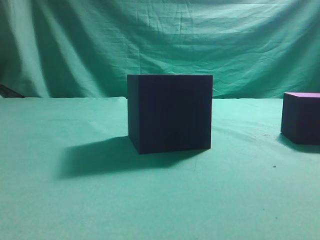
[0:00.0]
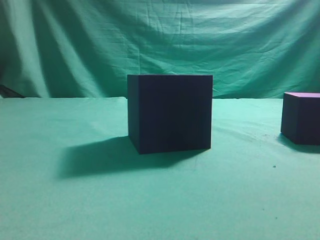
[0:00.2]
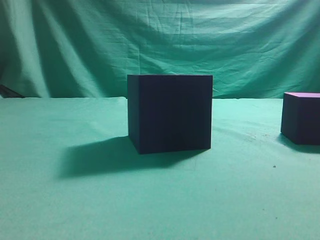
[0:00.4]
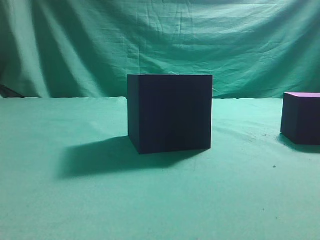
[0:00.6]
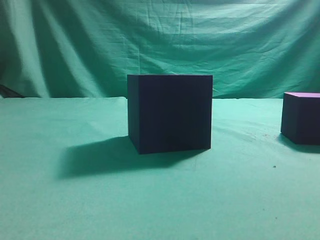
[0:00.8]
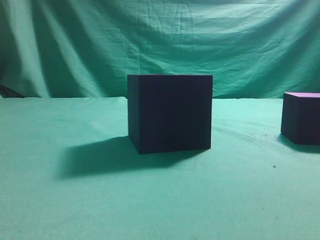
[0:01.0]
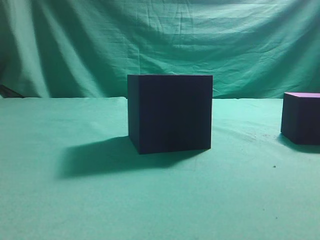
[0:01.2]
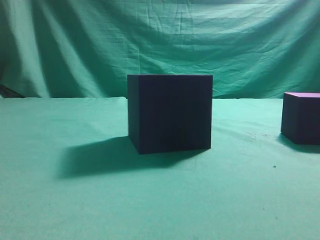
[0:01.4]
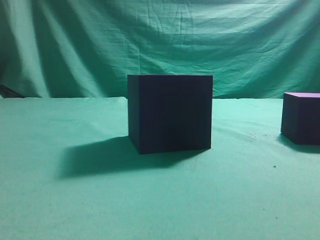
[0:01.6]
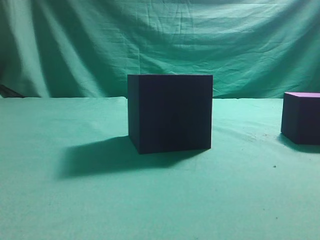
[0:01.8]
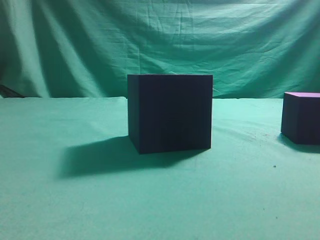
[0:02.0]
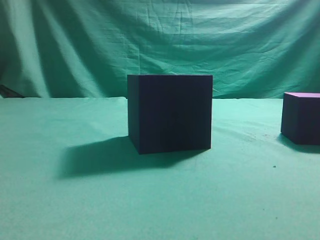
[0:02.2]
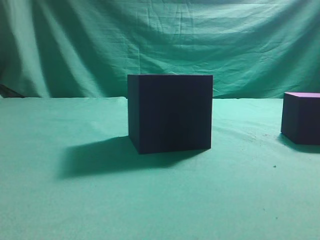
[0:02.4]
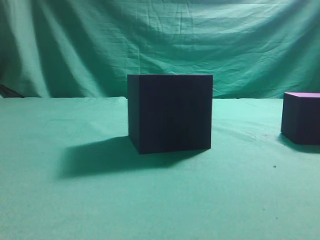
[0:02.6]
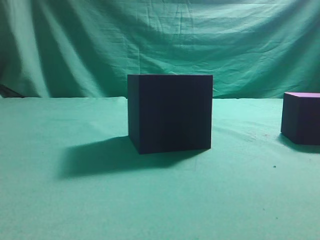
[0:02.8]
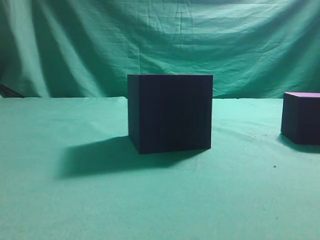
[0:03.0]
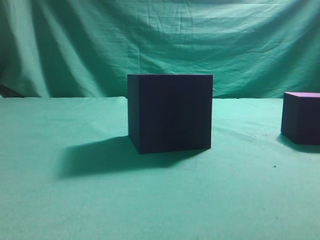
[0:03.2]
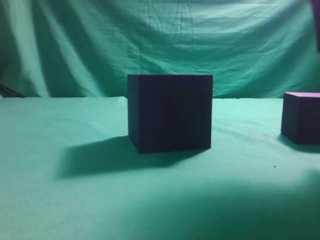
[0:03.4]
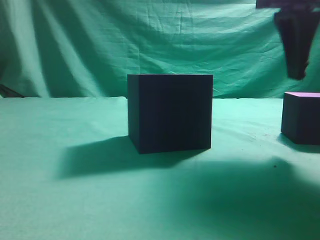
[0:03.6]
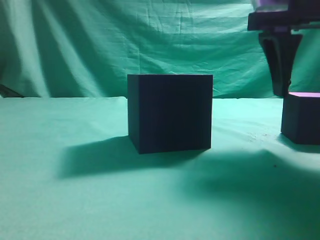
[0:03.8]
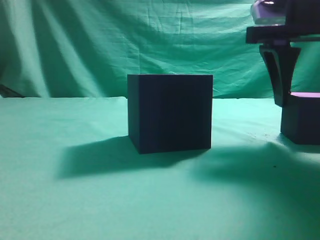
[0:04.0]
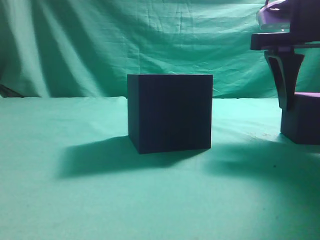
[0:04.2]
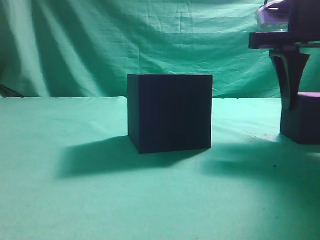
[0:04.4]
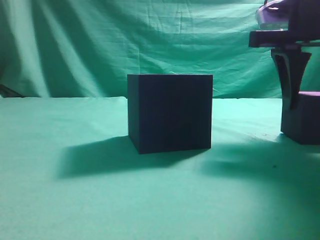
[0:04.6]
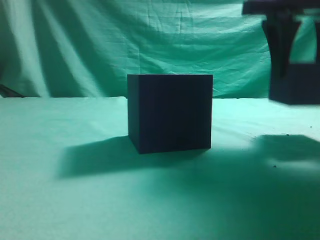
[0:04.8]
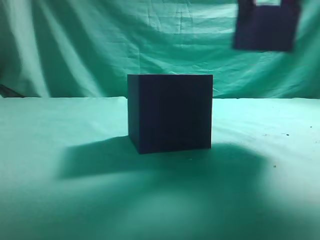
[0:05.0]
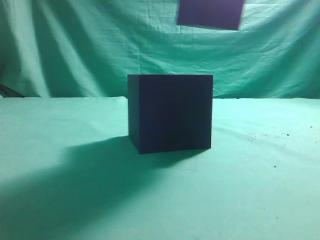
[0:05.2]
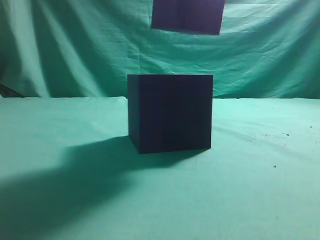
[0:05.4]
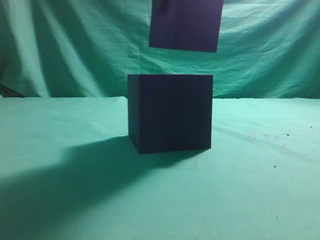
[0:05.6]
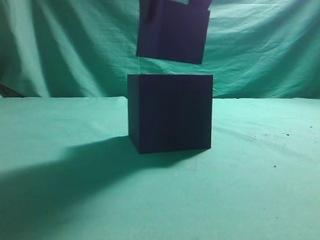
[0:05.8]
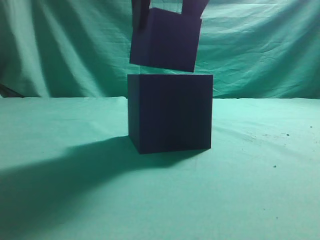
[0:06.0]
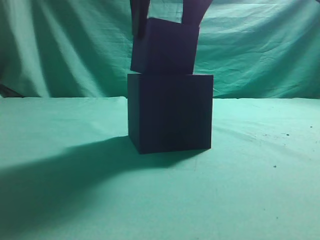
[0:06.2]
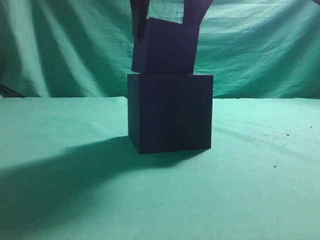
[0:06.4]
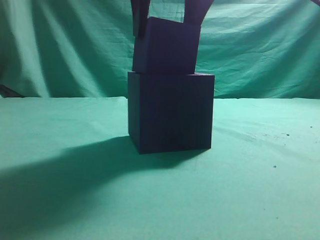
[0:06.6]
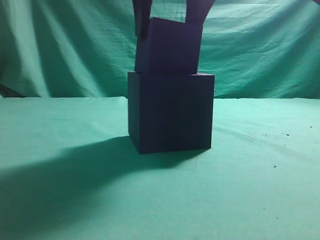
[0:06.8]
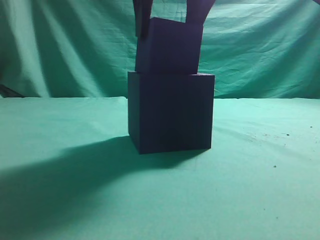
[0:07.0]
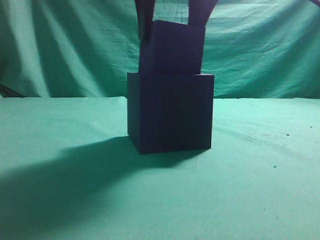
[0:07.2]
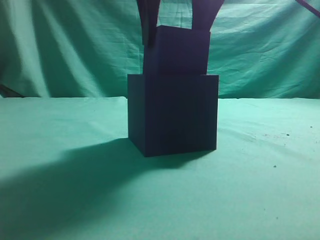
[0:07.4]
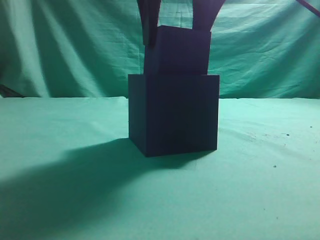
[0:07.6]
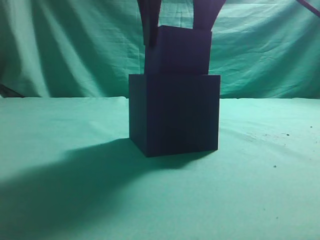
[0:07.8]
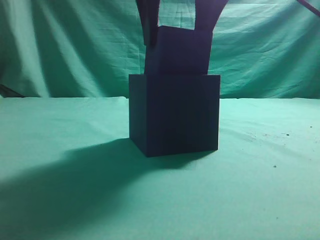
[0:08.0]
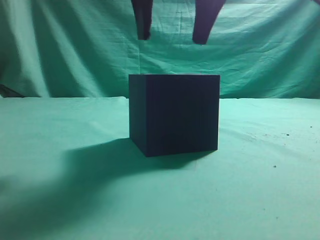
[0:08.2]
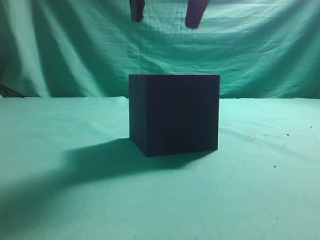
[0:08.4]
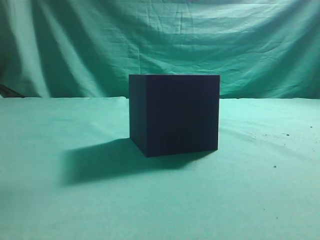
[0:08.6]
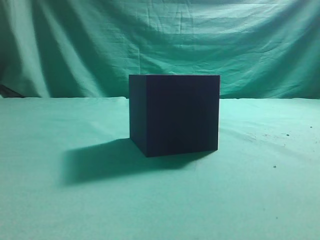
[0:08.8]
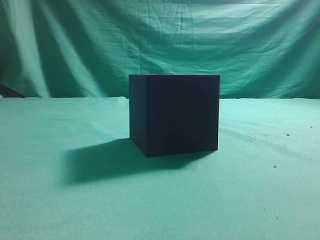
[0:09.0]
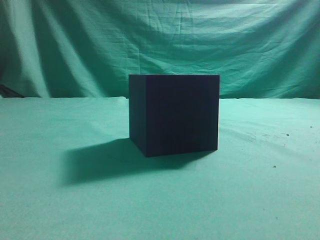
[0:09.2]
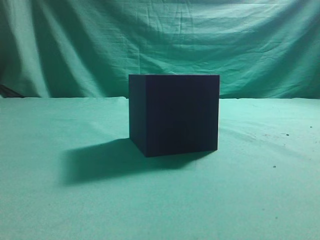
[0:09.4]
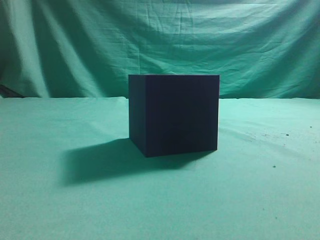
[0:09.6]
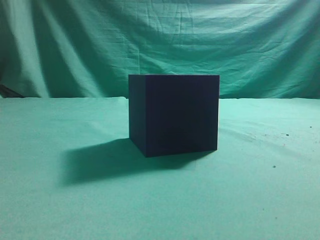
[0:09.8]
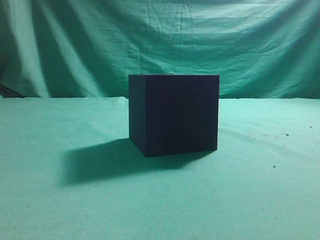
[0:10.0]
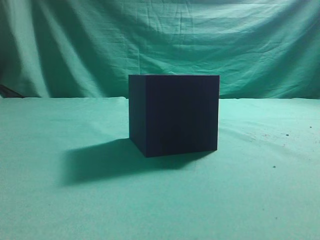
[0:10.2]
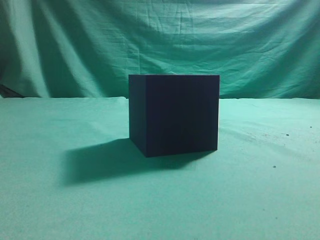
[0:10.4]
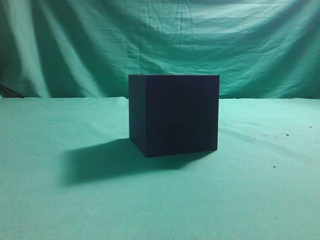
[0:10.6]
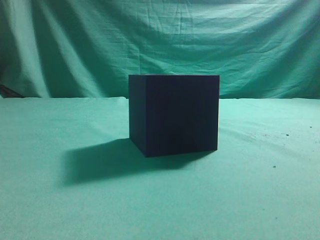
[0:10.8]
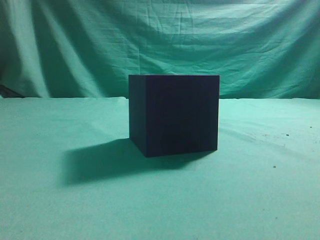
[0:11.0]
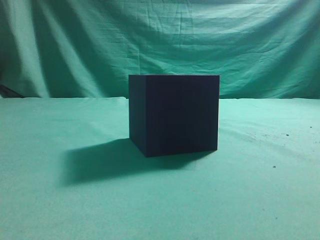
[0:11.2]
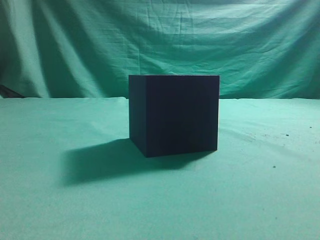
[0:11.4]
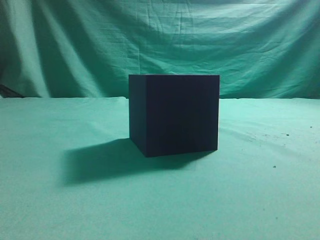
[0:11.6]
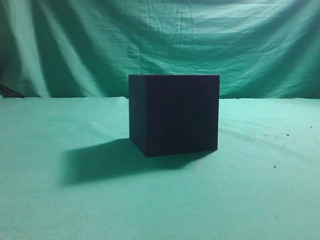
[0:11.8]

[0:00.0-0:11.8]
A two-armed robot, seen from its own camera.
Task of the whole recording: pick up the cube block and place it into the cube groove.
Step, 0:00.0 to 0:04.6: Grasp the cube.
Step, 0:05.0 to 0:08.2: Place cube into the cube-shaped recess.
0:03.0 to 0:04.4: The right gripper moves forward and downward, approximately 15 cm, and opens up.
0:04.4 to 0:06.0: The right gripper is displaced to the left and upward by about 20 cm.
0:06.0 to 0:07.4: The grippers make only small movements.
0:07.4 to 0:08.8: The right gripper is displaced upward by about 10 cm, and closes.
